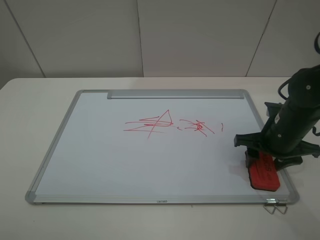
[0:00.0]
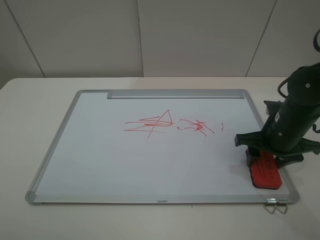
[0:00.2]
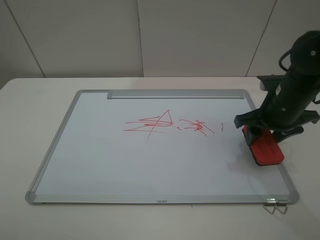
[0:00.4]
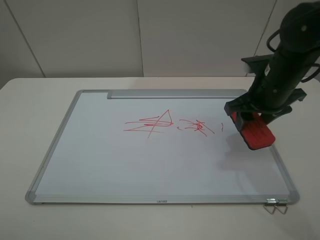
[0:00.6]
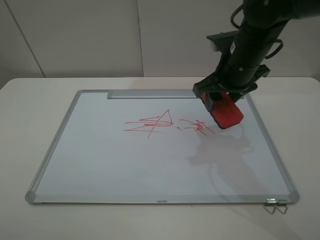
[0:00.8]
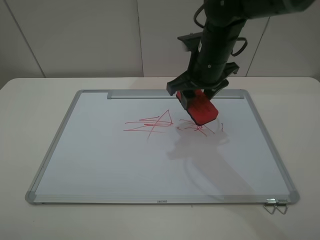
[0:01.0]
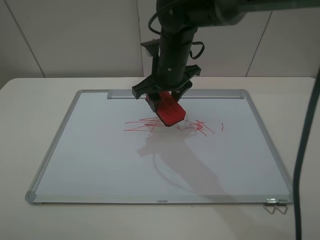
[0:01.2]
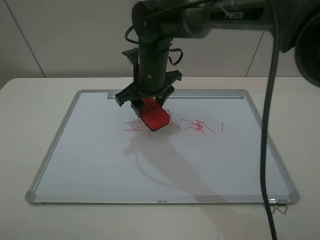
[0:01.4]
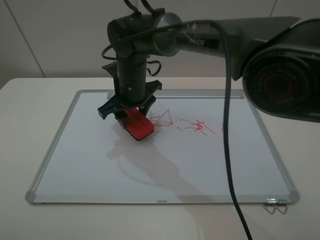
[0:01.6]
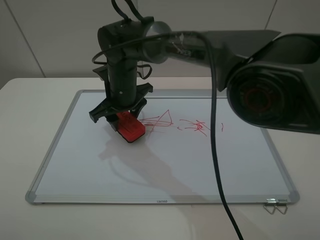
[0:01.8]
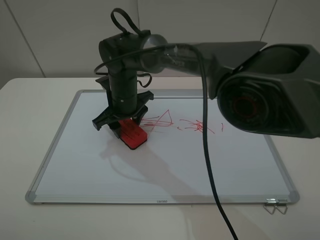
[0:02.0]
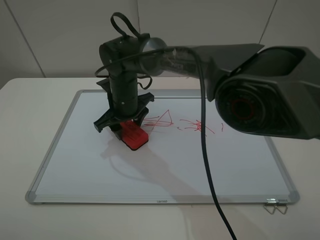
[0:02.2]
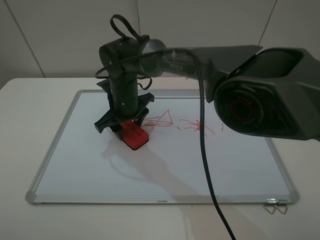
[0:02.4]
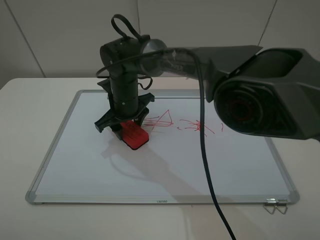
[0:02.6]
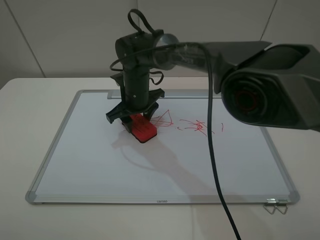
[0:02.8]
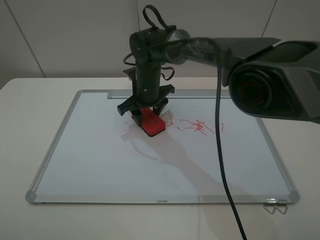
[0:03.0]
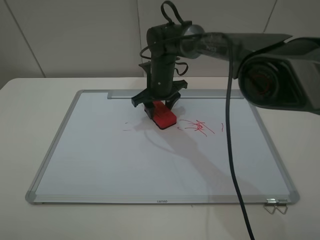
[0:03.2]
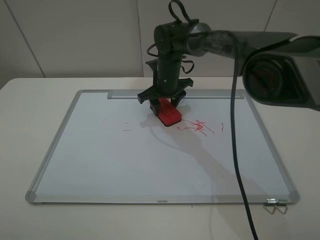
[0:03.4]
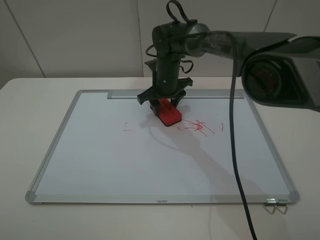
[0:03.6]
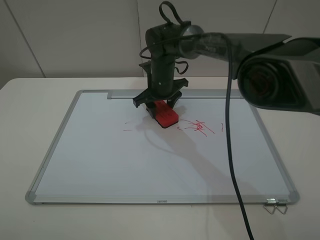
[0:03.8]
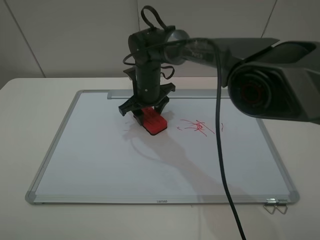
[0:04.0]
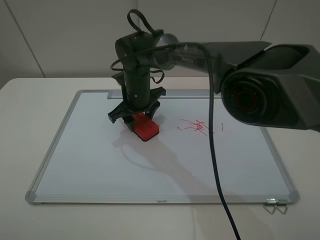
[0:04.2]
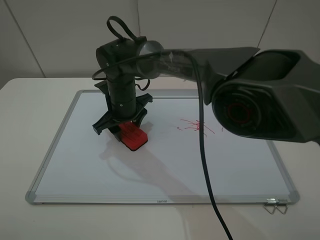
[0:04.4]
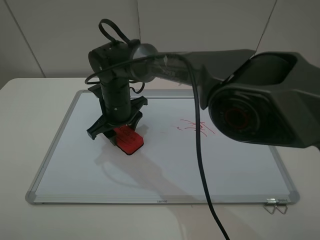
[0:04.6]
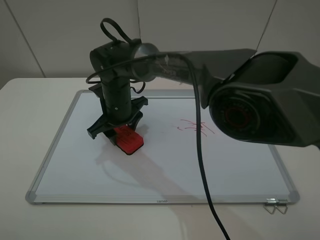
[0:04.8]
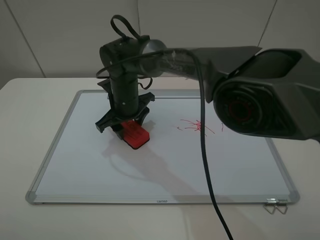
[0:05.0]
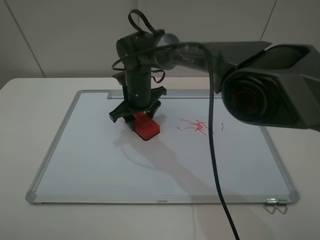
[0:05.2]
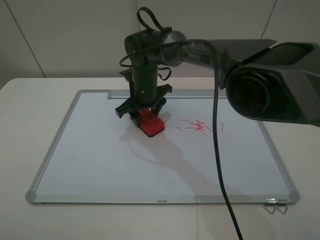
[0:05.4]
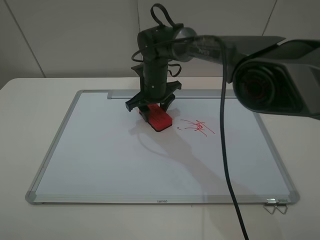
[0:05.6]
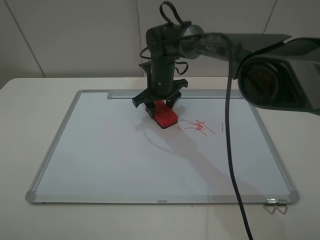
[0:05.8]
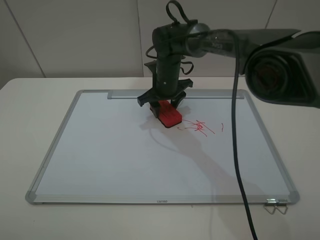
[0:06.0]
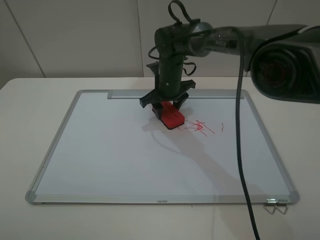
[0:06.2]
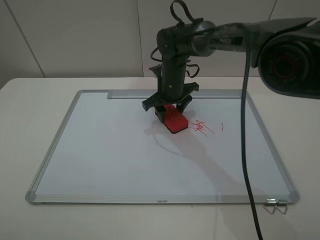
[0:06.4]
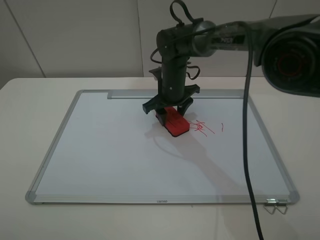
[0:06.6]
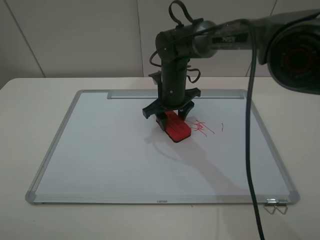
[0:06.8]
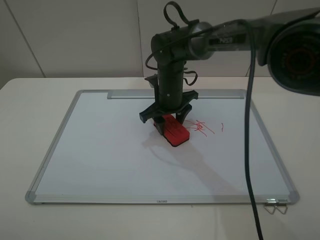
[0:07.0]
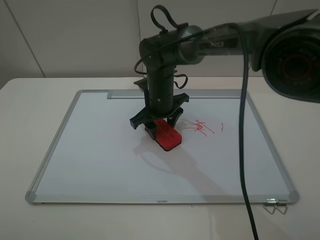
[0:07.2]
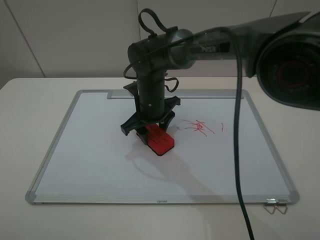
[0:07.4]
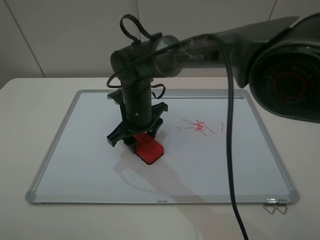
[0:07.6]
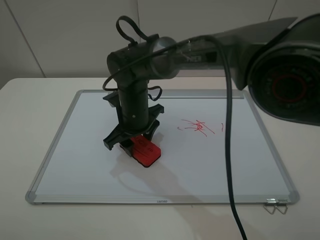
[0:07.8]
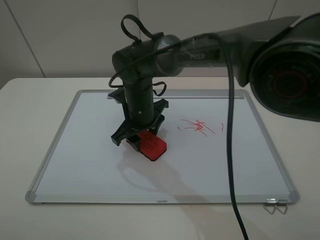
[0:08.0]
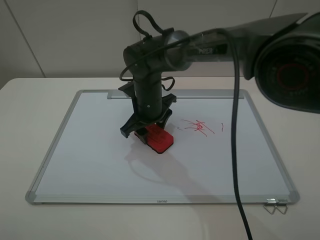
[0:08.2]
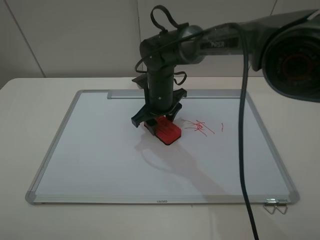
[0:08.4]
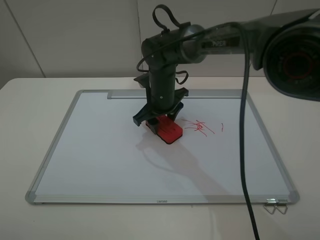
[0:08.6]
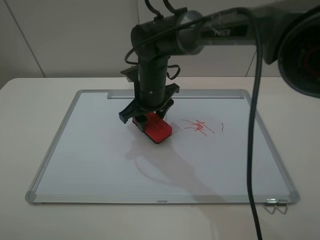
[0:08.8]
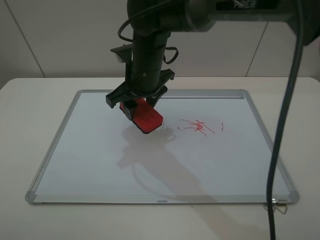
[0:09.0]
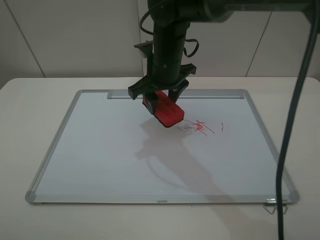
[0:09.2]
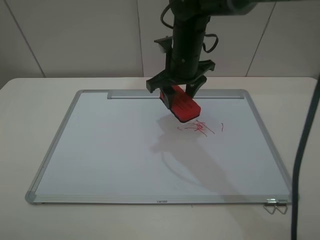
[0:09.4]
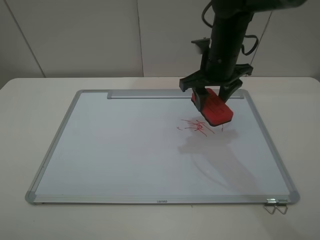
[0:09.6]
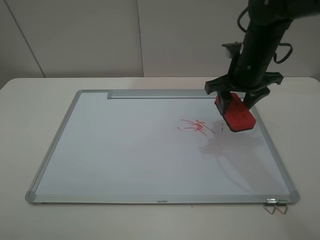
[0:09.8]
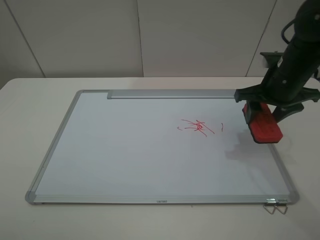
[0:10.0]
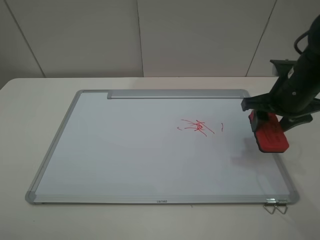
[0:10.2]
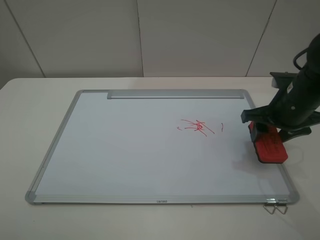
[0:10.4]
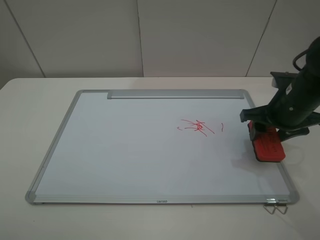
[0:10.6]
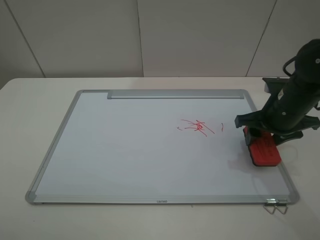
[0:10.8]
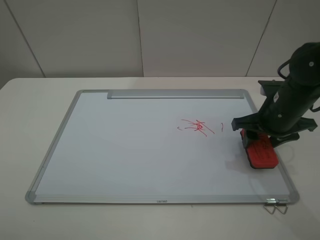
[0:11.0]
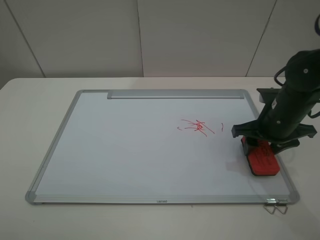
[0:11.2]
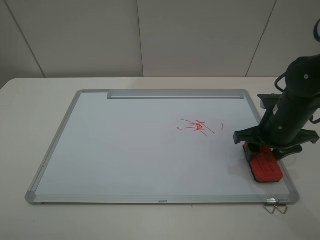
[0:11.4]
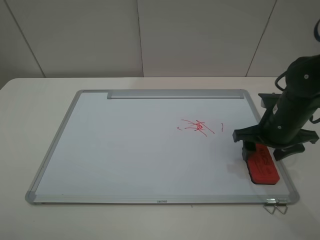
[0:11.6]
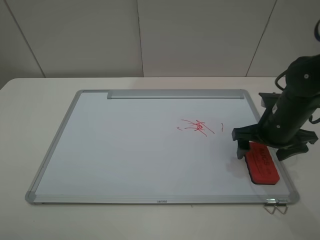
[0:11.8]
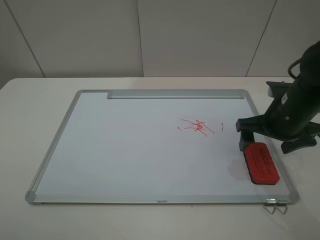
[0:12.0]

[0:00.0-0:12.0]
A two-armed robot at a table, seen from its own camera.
Step, 0:00.0 to 0:09.0: Grasp the eraser and wipe the blackboard with the right gripper.
Step, 0:09.2 to 0:11.8: Place the eraser with the right gripper.
0:00.0 to 0:01.6: The right gripper travels to the left by approximately 30 cm.
0:01.6 to 0:03.0: The right gripper heads forward, covering approximately 5 cm.
0:03.0 to 0:04.4: The right gripper is displaced to the left and backward by about 10 cm.
0:04.4 to 0:06.0: The right gripper moves to the right and forward, roughly 15 cm.
0:06.0 to 0:07.6: The right gripper goes about 15 cm backward and to the left.
0:07.6 to 0:09.0: The right gripper shifts about 10 cm upward.
0:09.0 to 0:10.4: The right gripper heads to the right, covering approximately 25 cm.
0:10.4 to 0:12.0: The right gripper opens.

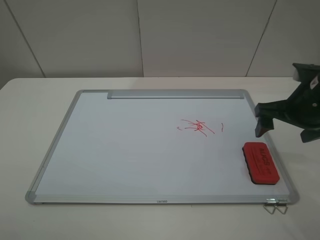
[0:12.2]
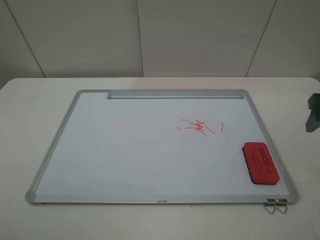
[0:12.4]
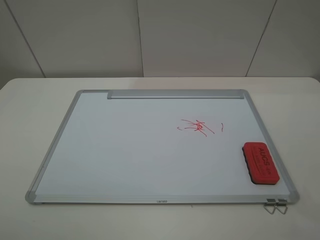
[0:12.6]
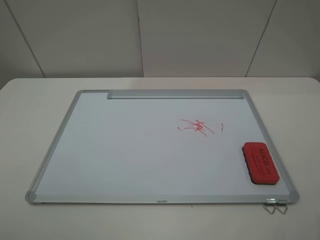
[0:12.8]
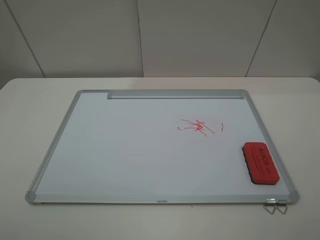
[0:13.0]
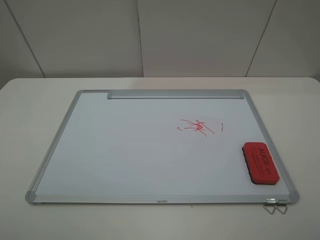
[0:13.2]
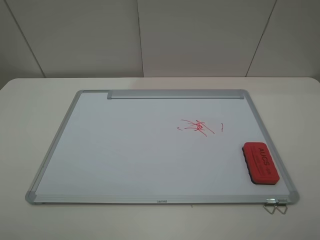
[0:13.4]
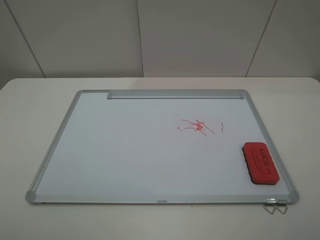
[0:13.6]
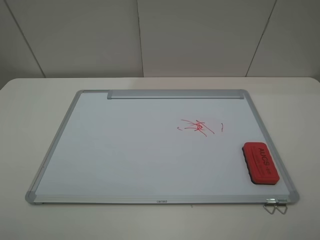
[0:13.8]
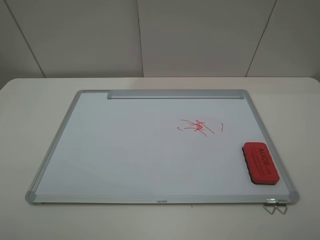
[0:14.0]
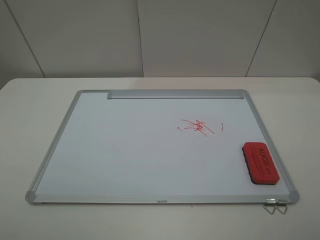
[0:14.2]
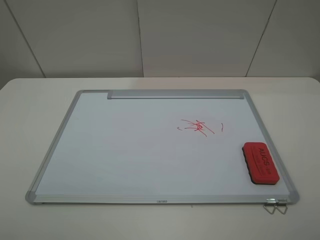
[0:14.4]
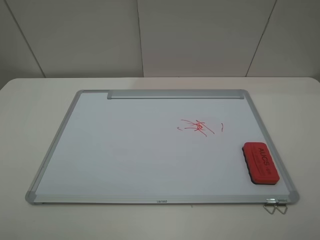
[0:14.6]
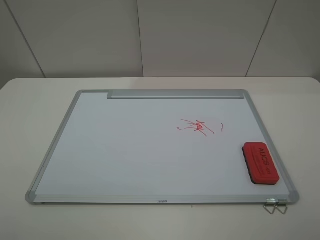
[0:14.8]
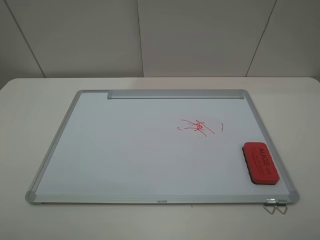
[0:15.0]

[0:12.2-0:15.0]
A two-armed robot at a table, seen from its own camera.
0:12.2 to 0:13.6: The right gripper moves backward, roughly 25 cm.
0:13.6 to 0:15.0: The two grippers keep their place.
